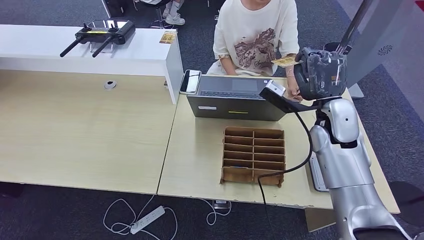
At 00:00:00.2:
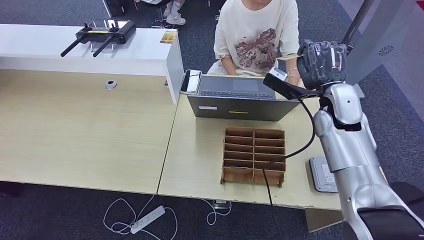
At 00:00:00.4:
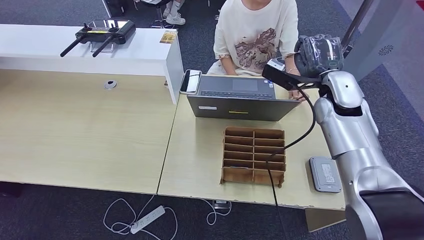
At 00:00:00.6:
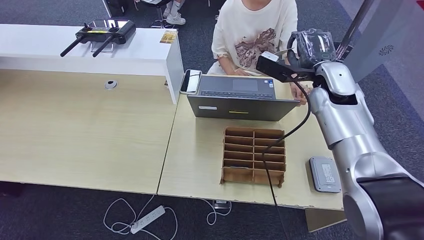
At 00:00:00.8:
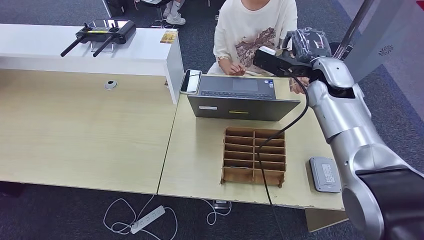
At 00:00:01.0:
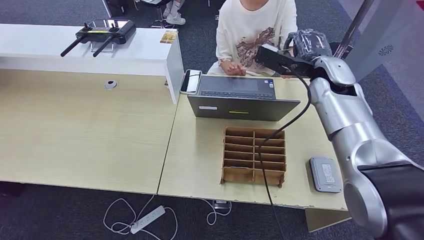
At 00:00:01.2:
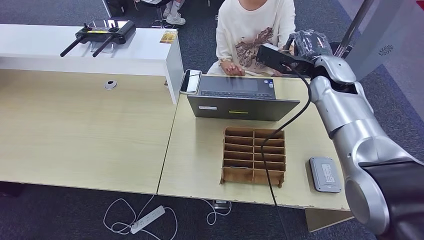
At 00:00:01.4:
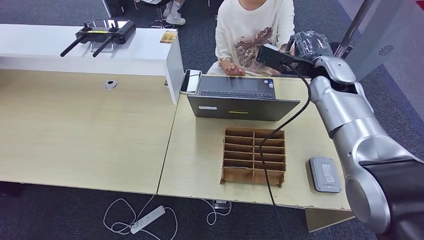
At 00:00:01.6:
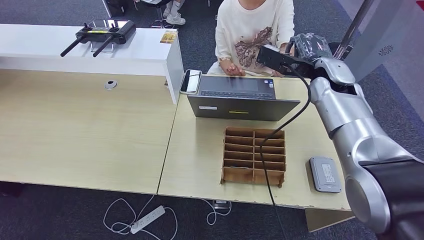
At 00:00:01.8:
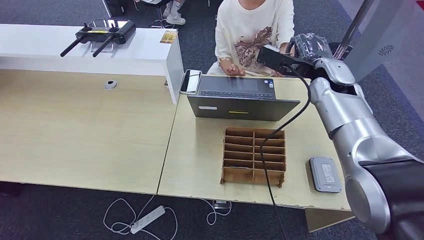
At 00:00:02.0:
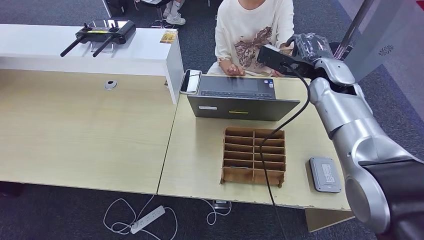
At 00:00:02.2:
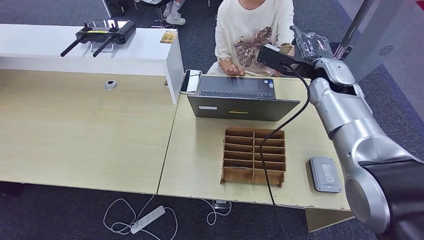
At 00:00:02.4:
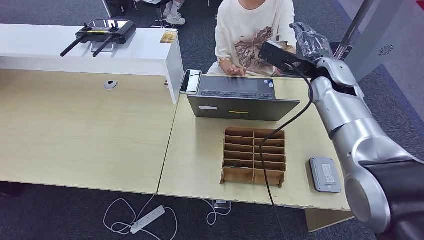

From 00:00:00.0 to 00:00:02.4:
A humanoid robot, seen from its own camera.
Step, from 00:00:00.0 to 00:00:02.4: Hand the room key to the person.
From 00:00:00.0 to 00:00:01.2: The right hand moves forward and upward, about 10 cm.
From 00:00:01.2 to 00:00:02.4: Both hands stay put.
